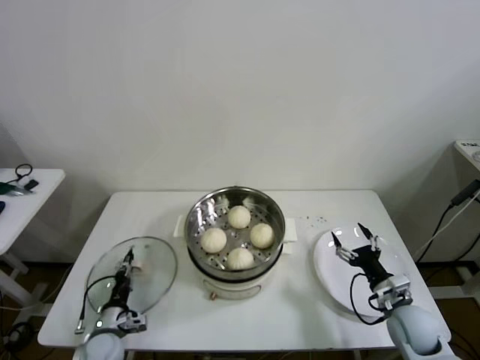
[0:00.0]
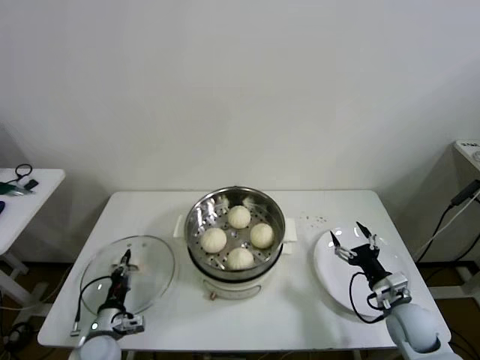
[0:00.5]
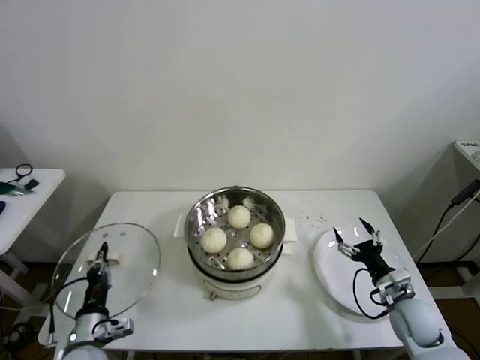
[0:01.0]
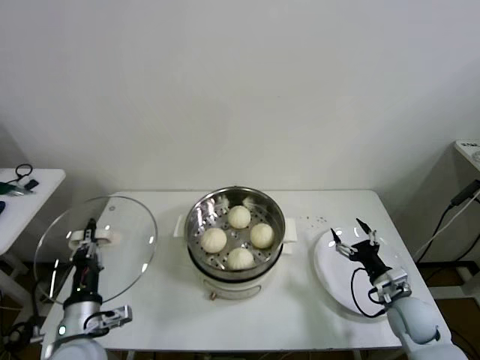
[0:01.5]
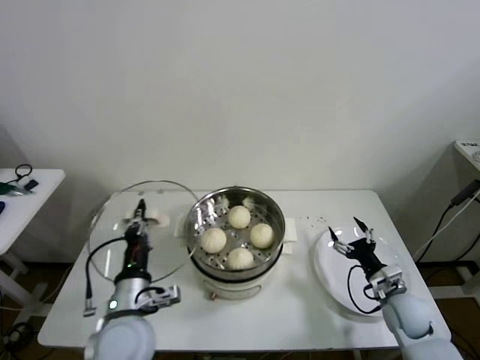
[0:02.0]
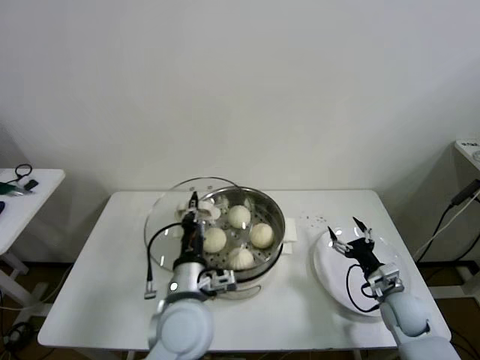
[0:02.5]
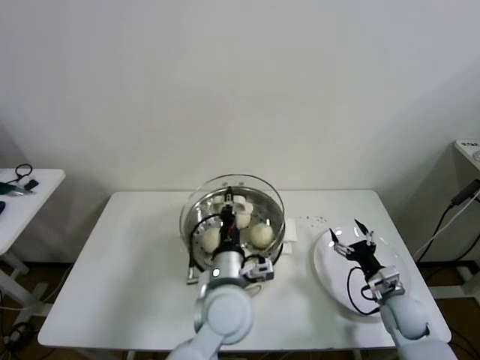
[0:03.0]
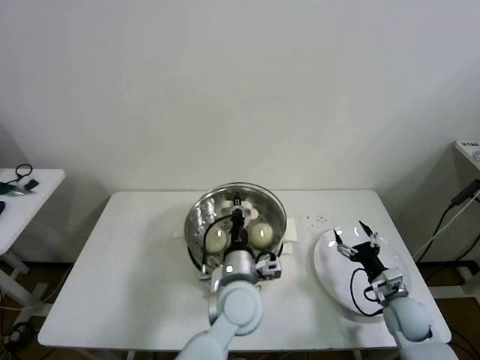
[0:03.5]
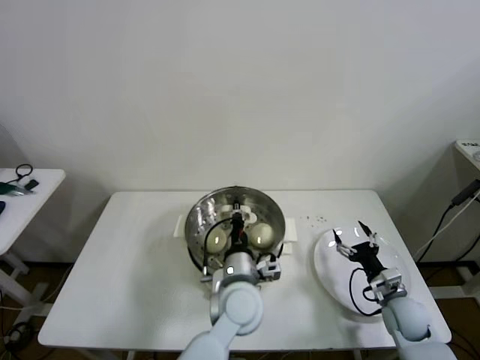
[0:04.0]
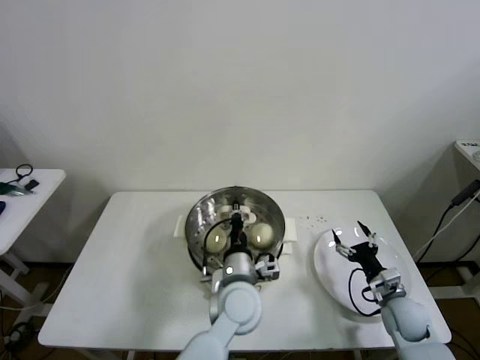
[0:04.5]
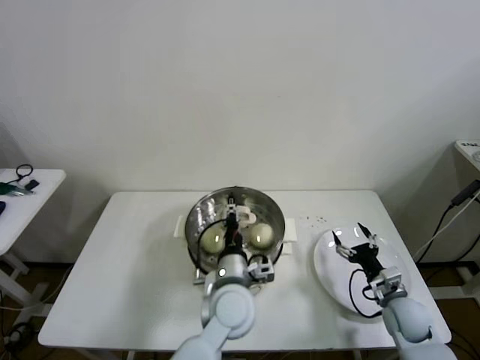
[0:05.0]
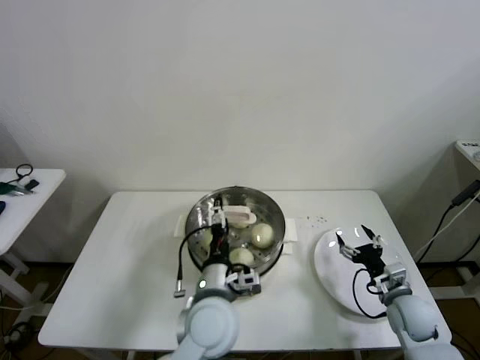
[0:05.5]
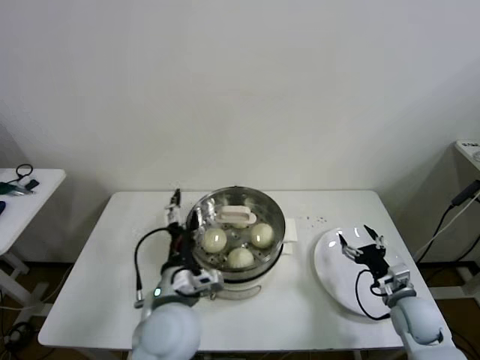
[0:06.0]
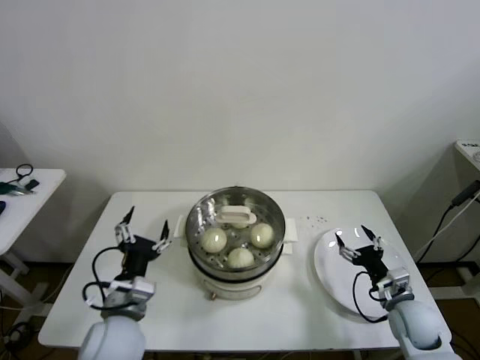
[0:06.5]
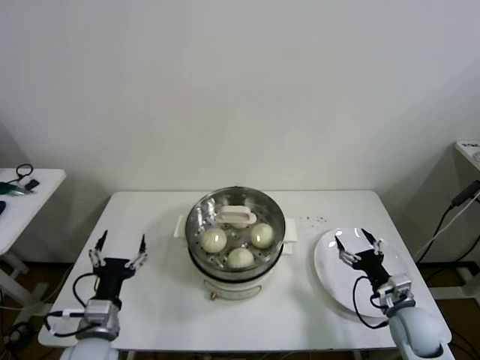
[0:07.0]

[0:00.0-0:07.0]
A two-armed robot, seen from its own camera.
Step, 0:00.5 to 0:04.5: Place the pot lid on the steamer with left gripper.
0:00.0 to 0:02.0: The left gripper shifts approximately 25 cm upward and to the right.
0:02.0 to 0:03.5: The left gripper heads to the right, covering roughly 20 cm.
0:03.5 to 0:05.0: The left gripper opens.
0:05.0 to 0:07.0: The left gripper travels to the left by about 25 cm, and opens its fingers.

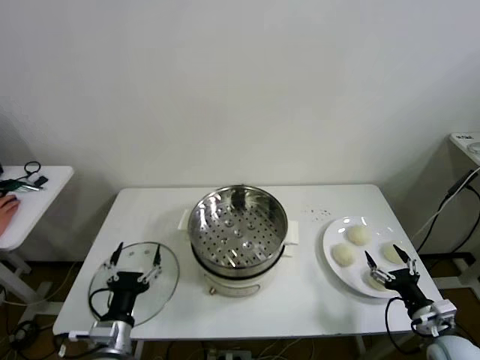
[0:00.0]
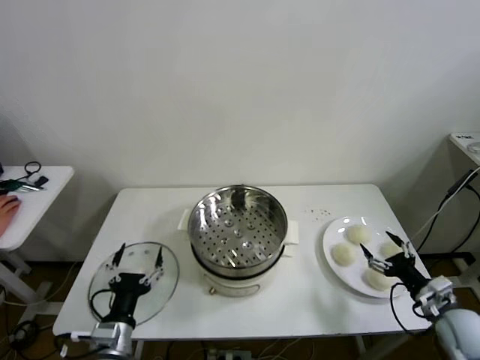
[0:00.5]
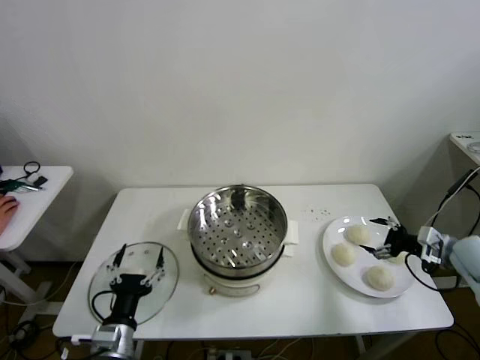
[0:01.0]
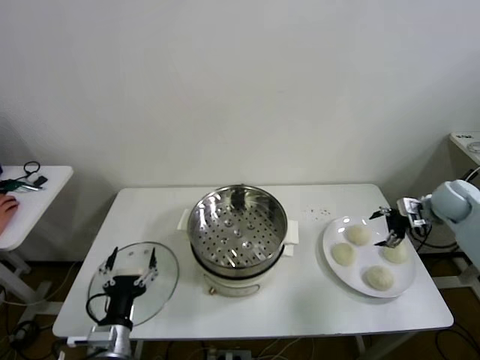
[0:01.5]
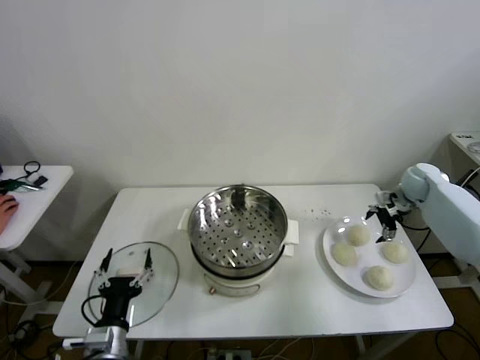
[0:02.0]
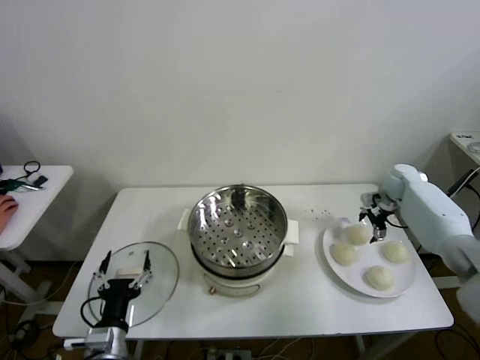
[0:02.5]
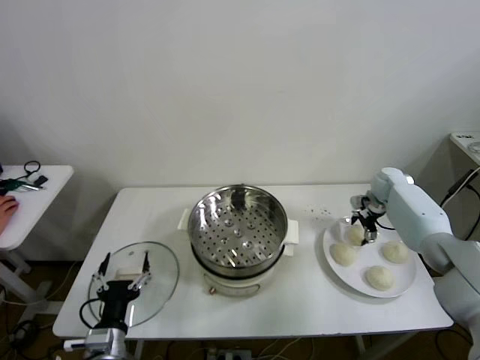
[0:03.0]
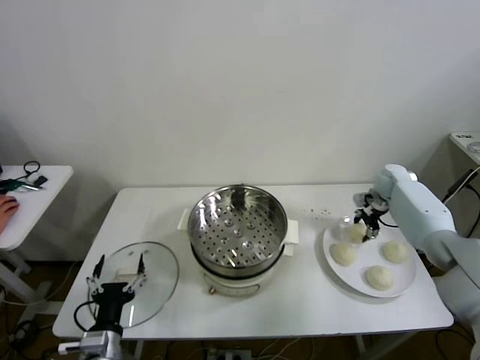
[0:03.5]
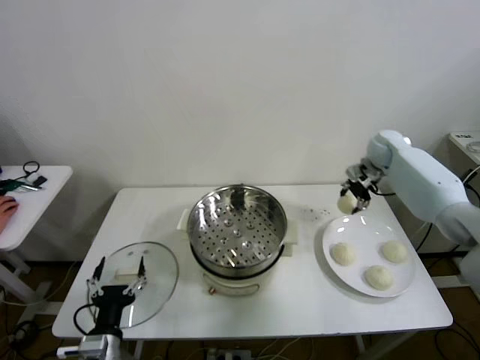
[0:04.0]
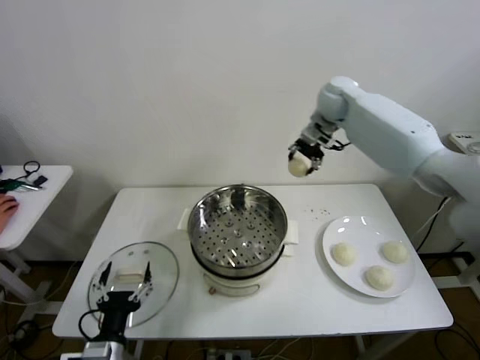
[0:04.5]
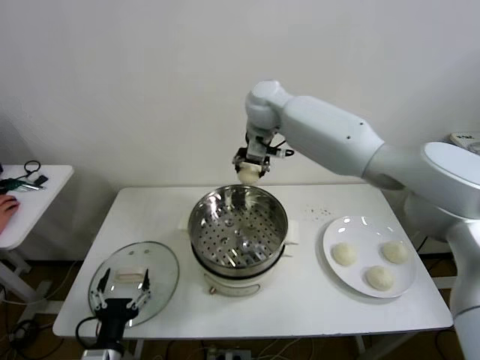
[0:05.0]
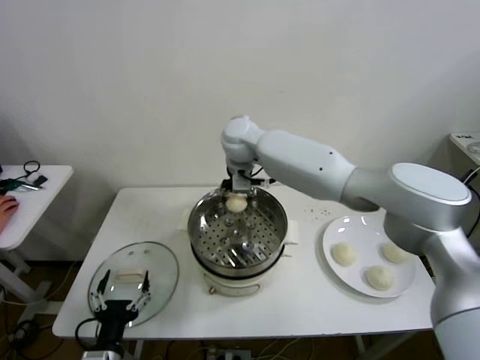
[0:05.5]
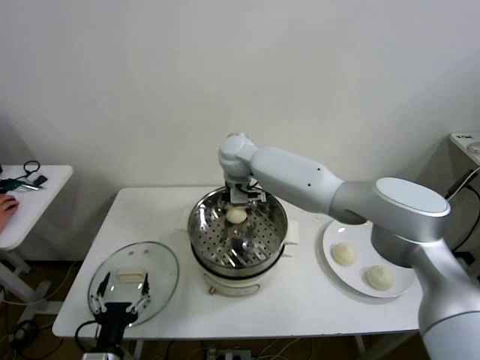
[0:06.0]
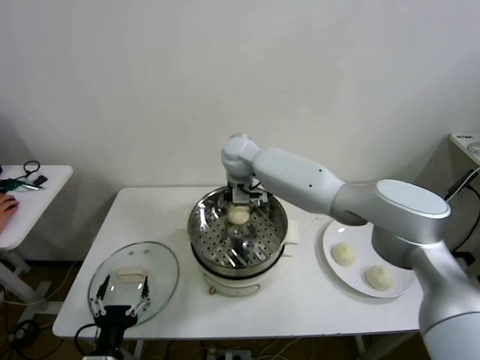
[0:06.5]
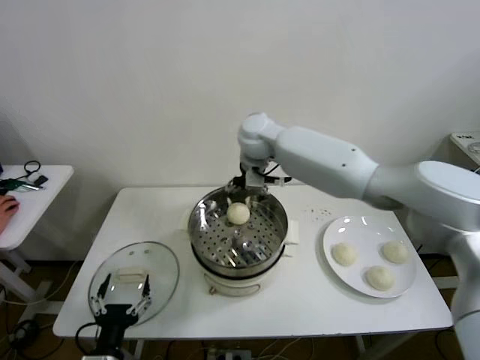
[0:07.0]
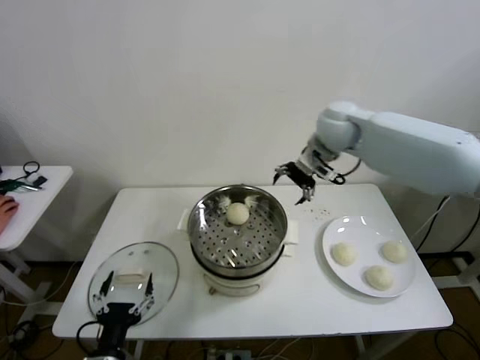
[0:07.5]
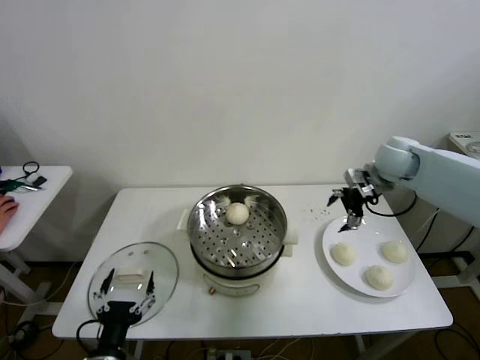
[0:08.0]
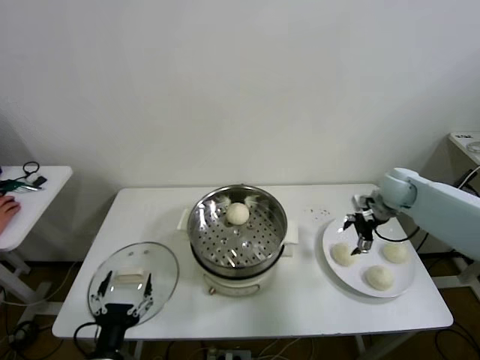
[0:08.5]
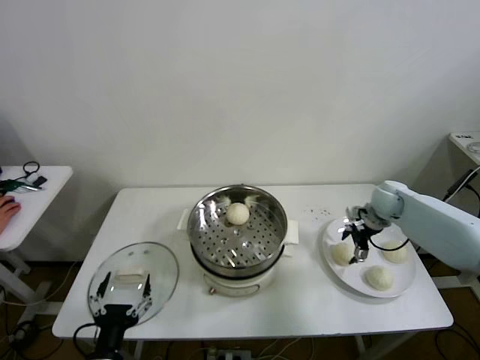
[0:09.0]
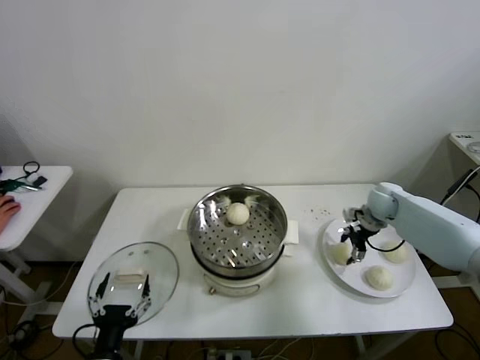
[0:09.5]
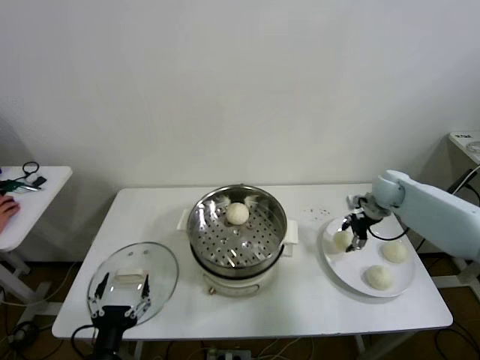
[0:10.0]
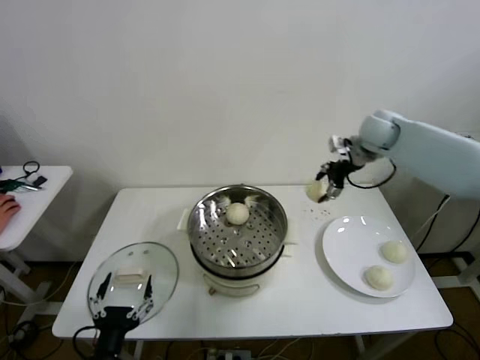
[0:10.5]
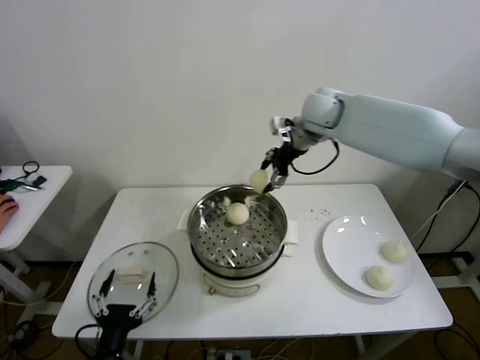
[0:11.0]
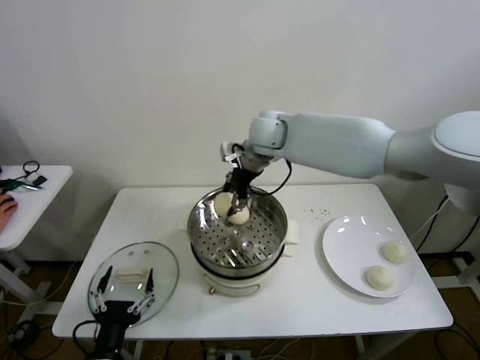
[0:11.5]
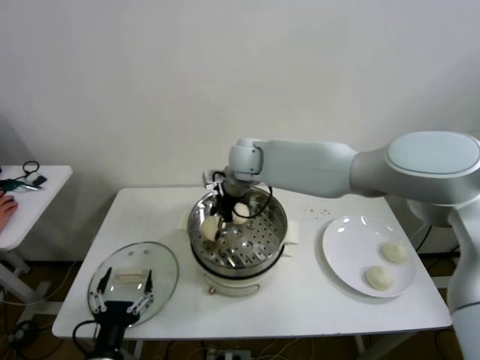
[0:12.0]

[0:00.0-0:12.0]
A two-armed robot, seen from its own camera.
Step, 0:00.0 to 0:03.0: Grasp the baozi in the plate with right gripper.
Step, 0:03.5 to 0:06.0: Place the baozi on the steamer with right gripper.
Step, 0:07.0 to 0:09.5: Grasp the baozi in the plate with right gripper.
0:02.0 to 0:04.0: The right gripper heads to the left, upward and forward, covering approximately 15 cm, and closes up.
0:04.0 to 0:06.0: The right gripper travels to the left by some 35 cm.
0:06.0 to 0:08.0: The right gripper travels to the right by some 35 cm, and opens up.
0:08.0 to 0:10.0: The right gripper is displaced downward by roughly 10 cm, and closes.
0:10.0 to 0:12.0: The right gripper travels to the left by approximately 40 cm.

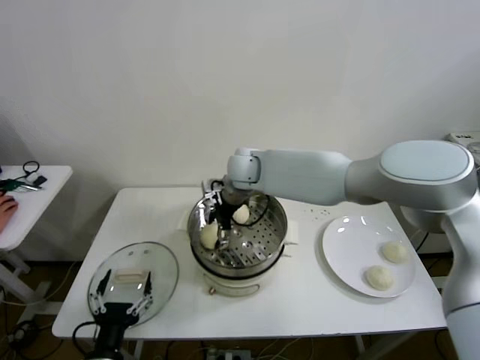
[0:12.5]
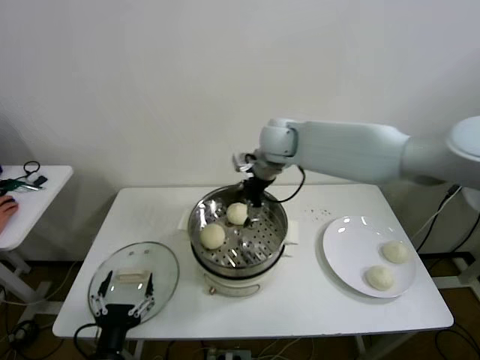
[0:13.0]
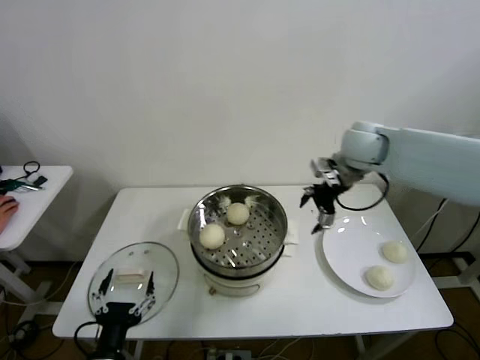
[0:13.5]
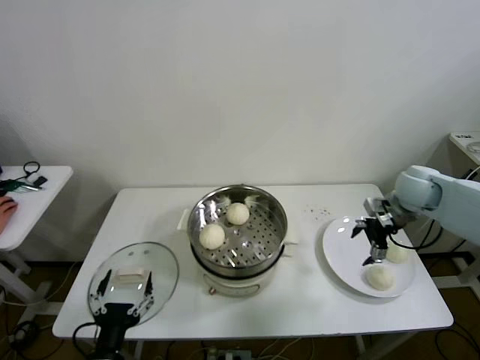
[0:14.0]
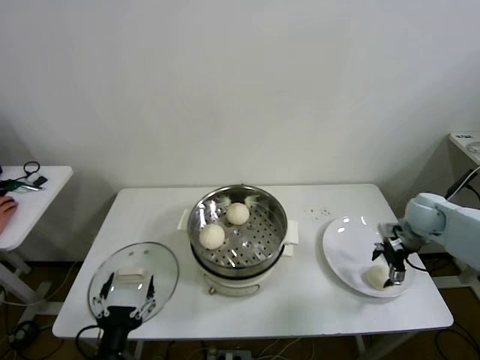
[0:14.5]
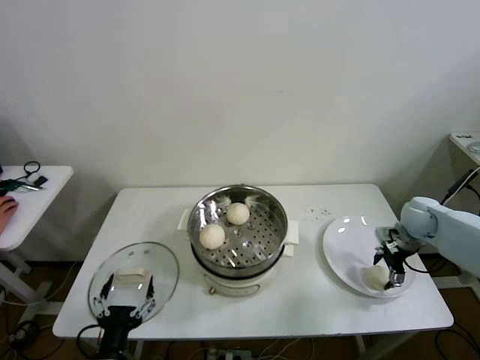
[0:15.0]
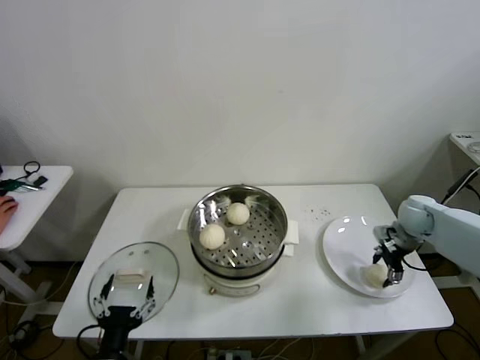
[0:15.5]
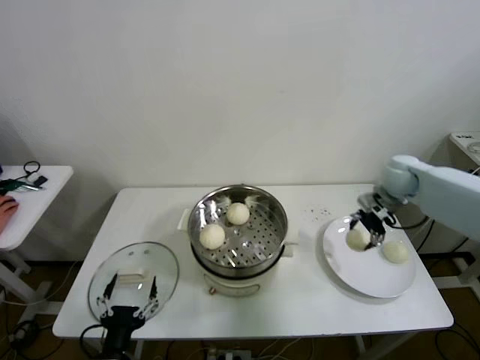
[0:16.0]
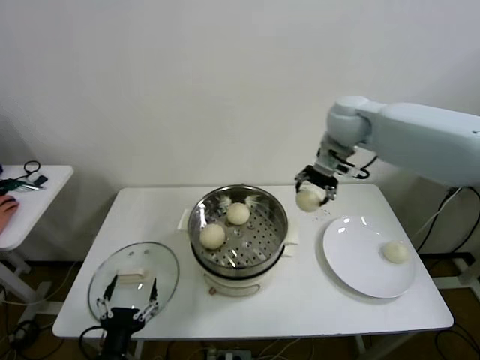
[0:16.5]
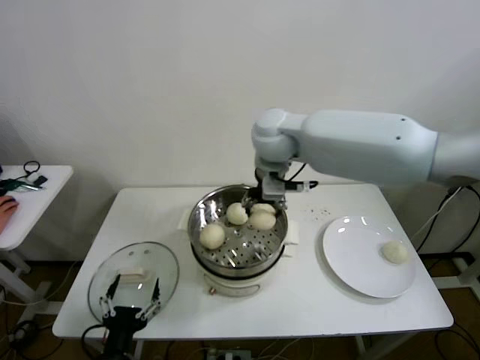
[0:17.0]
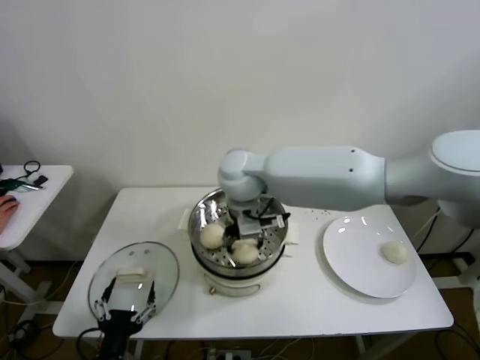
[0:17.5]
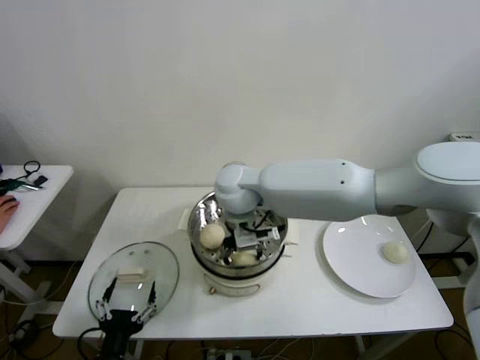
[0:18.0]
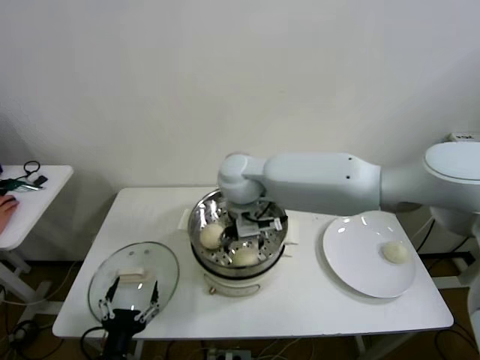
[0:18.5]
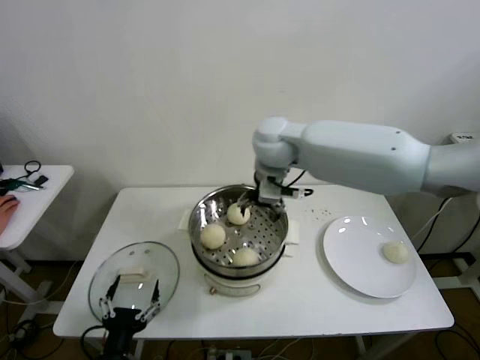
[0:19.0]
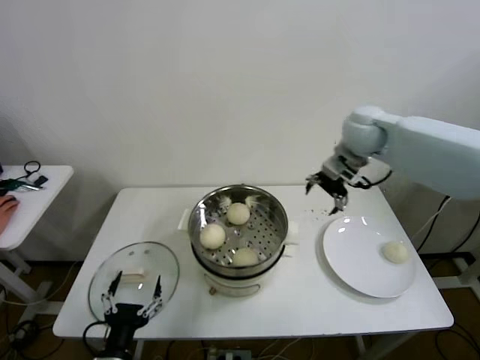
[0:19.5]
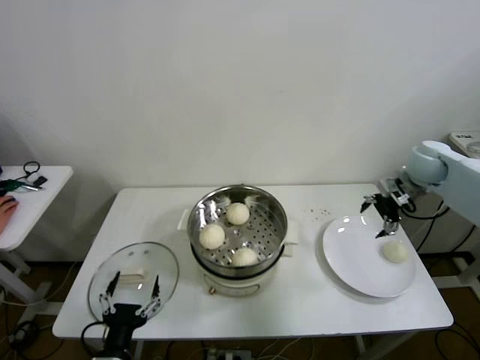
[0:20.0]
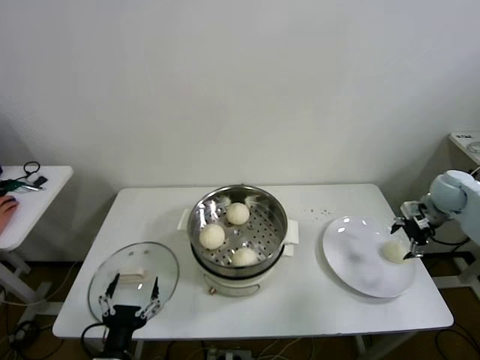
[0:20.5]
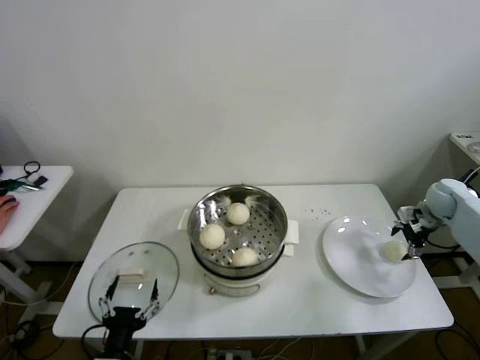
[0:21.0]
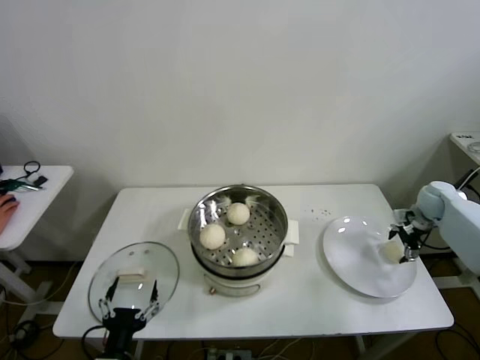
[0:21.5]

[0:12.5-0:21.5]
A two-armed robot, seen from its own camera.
Step, 0:13.0 to 0:15.0: Grasp the baozi in the plate with right gripper.
Step, 0:15.5 to 0:18.0: Place the baozi on the steamer with right gripper.
0:12.5 to 0:14.5: The right gripper travels to the right by approximately 40 cm.
0:14.5 to 0:17.0: The right gripper goes some 40 cm to the left and upward, and closes up.
0:17.0 to 0:19.5: The right gripper is displaced to the right by about 20 cm, and opens up.
0:19.5 to 0:21.5: The right gripper moves to the right and downward, roughly 30 cm.
